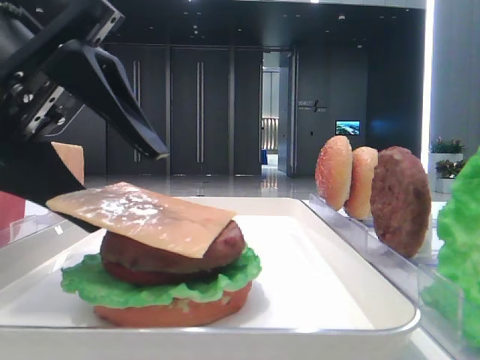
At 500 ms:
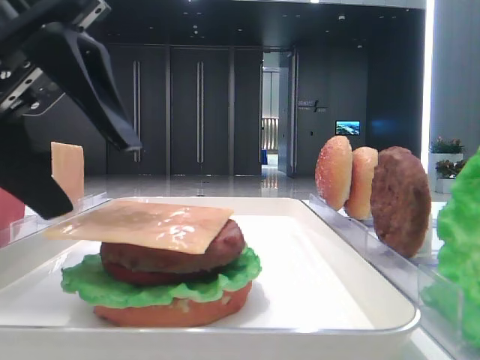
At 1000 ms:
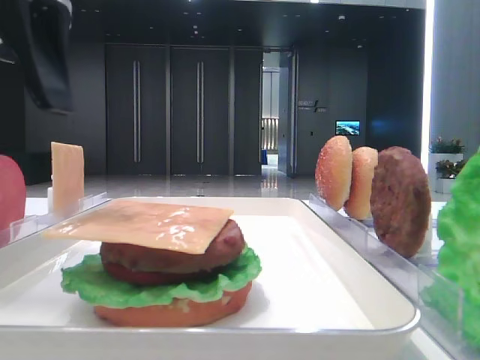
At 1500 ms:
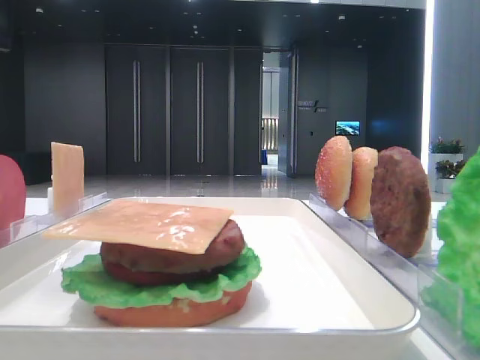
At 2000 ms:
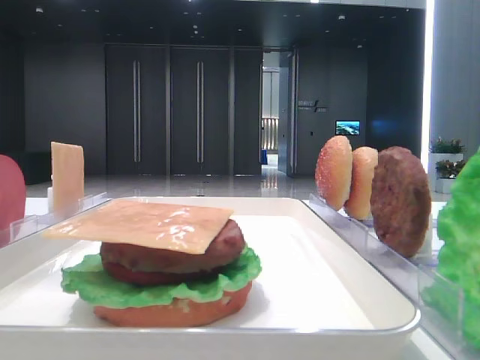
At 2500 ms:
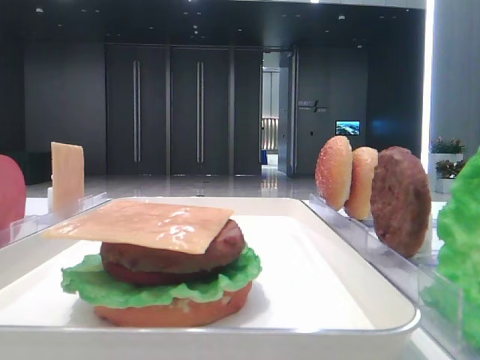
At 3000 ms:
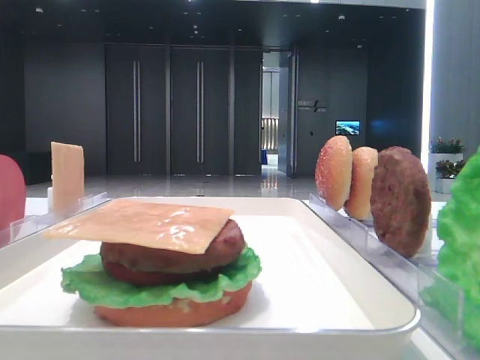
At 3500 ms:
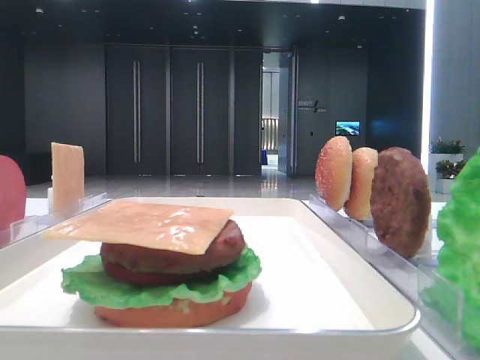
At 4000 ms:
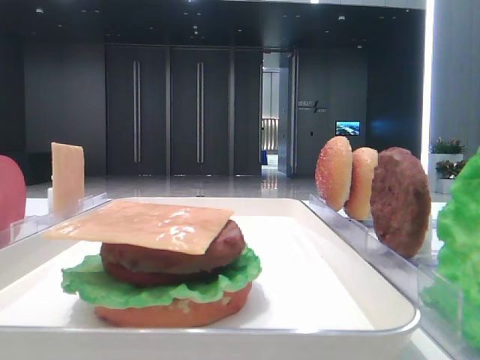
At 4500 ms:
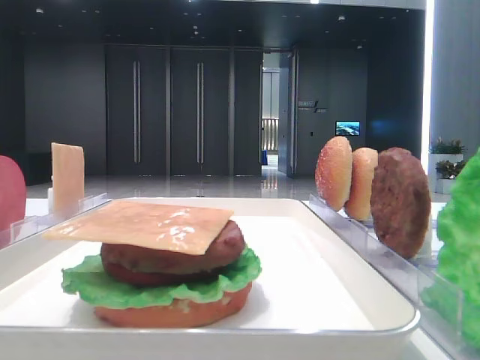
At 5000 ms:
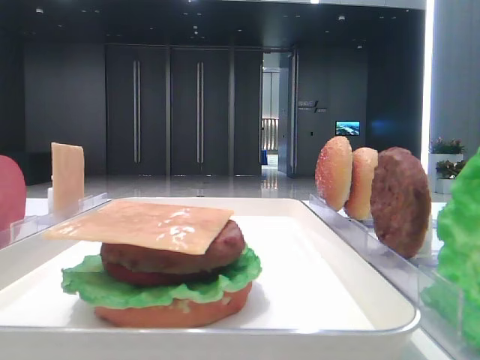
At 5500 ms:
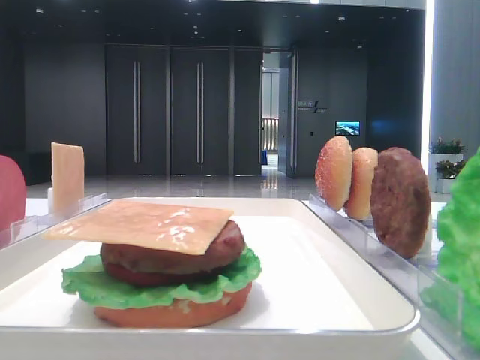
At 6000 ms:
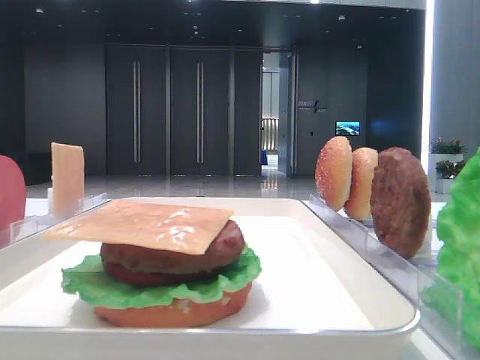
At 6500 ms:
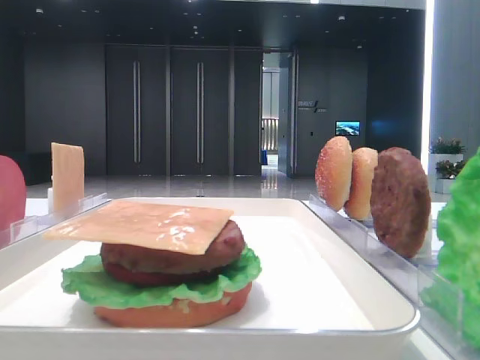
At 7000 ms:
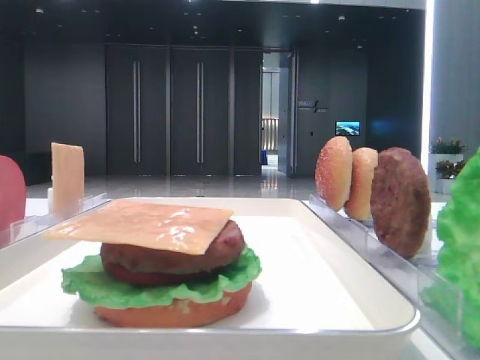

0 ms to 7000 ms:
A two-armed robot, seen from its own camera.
0 ms to 2000 ms: The left gripper travels upward and to the left by roughly 15 cm.
5000 ms to 7000 ms: Both grippers stay put.

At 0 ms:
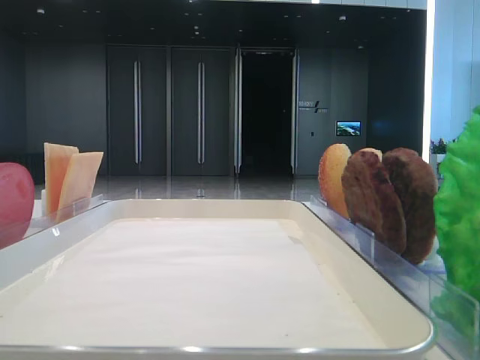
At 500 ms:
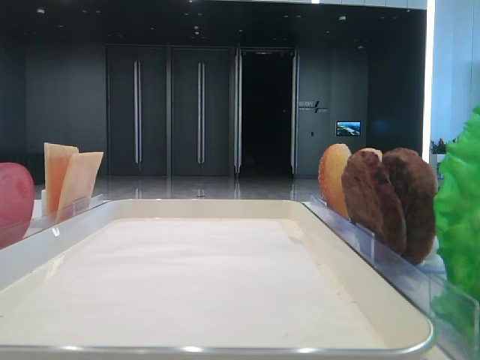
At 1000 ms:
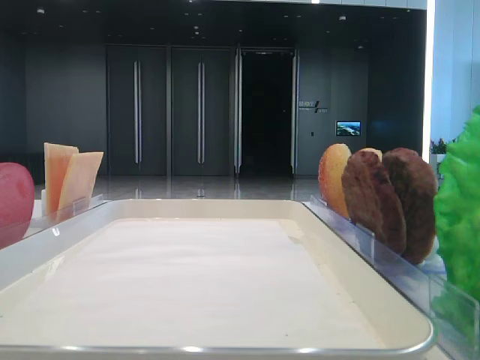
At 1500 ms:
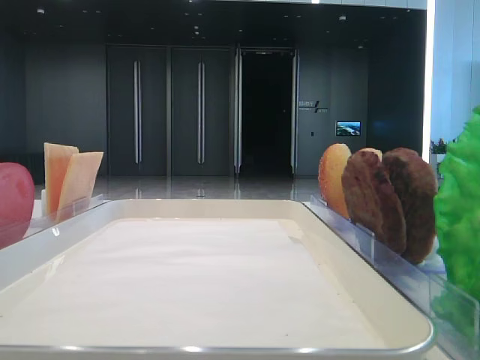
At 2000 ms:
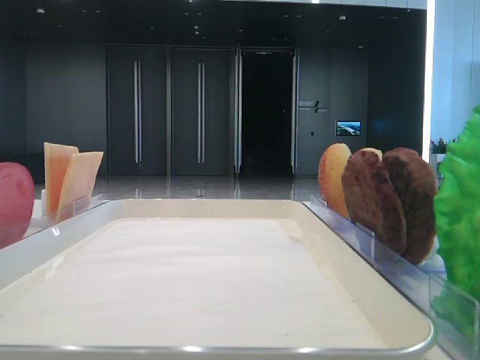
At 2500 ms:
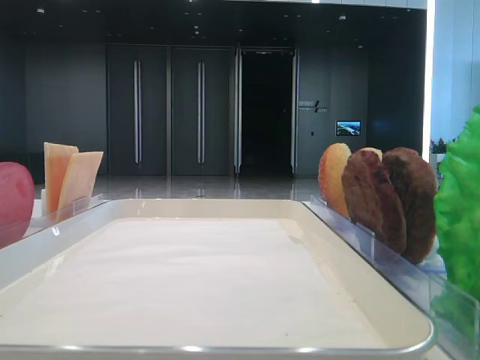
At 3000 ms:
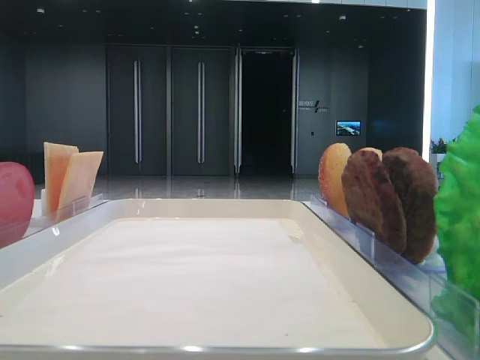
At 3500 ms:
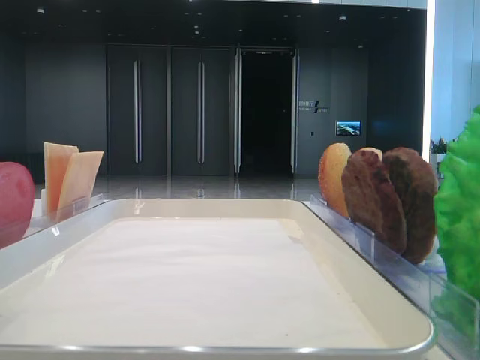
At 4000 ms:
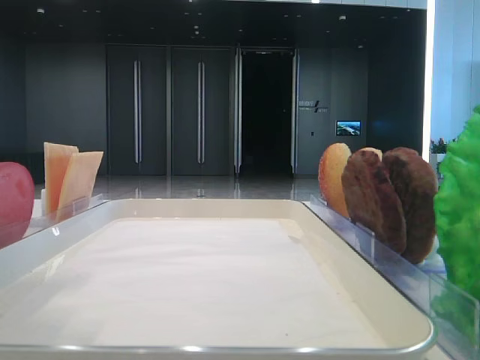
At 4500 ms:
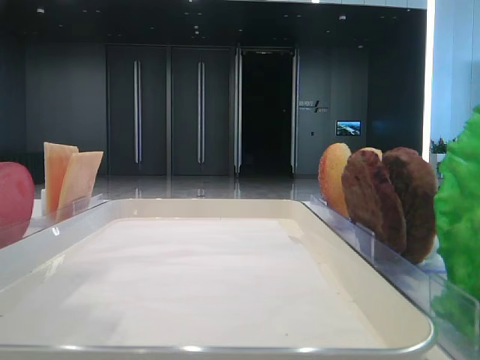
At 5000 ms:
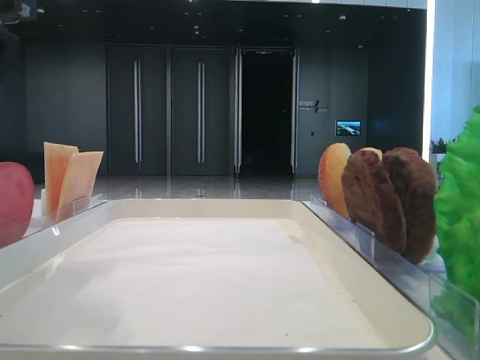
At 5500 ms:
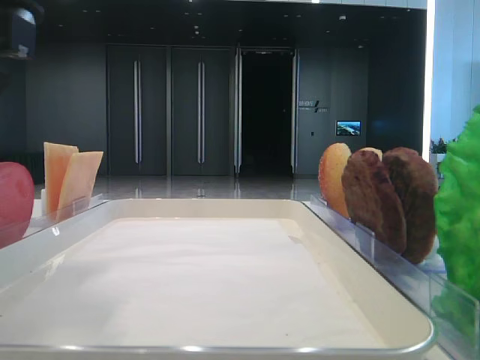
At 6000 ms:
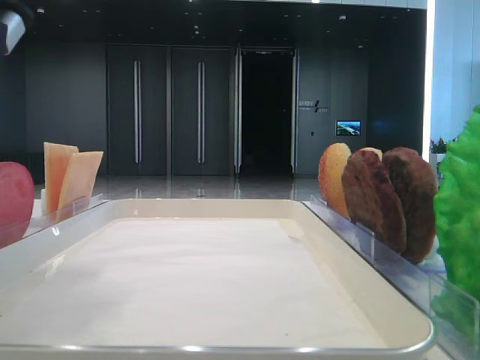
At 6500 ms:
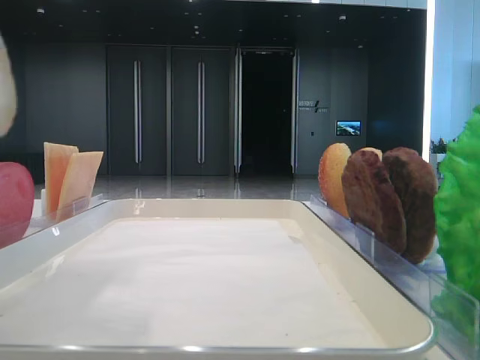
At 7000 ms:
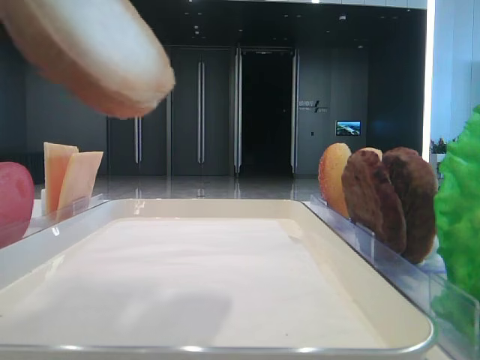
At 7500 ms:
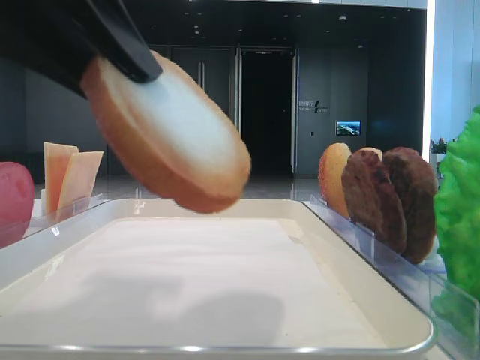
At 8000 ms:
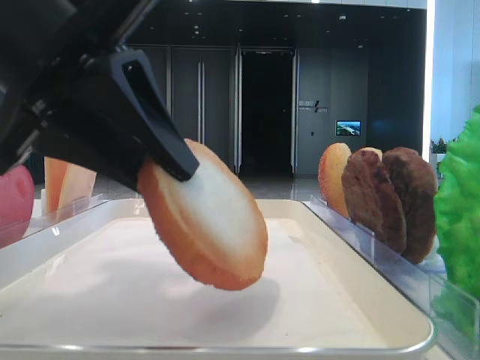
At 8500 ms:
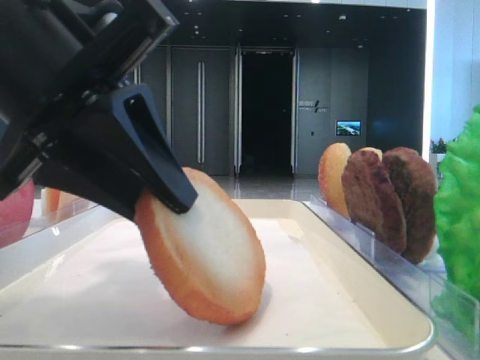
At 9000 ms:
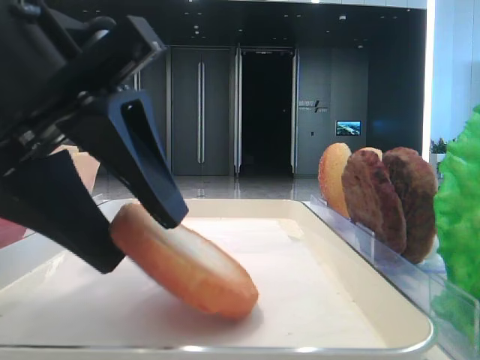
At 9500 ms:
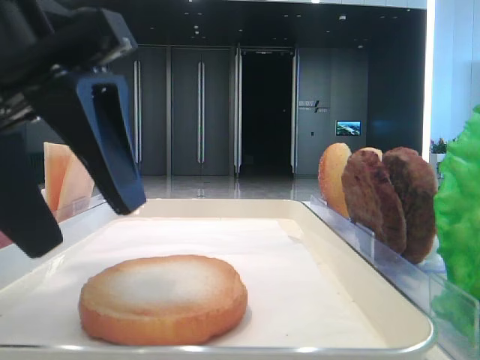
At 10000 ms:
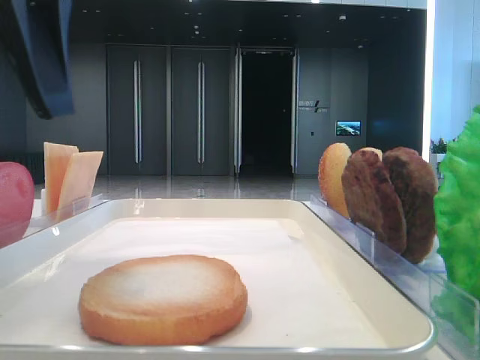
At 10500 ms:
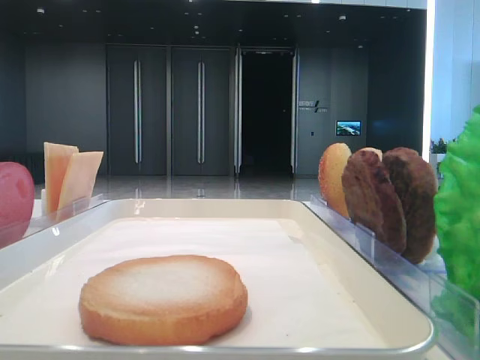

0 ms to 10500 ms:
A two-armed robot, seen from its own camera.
Step, 0 ms to 5500 ms: Pick up the bottom bread with the left hand.
Step, 6000 ms to 9000 ms: Place the bread on the tray with the left hand.
2000 ms to 4000 ms: The left gripper travels to the right and forward by roughly 15 cm.
4000 ms to 6500 ms: The left gripper travels downward and back again, some 5 cm each way, and closes.
6500 ms to 8500 ms: The left gripper travels downward and to the right by roughly 15 cm.
8500 ms to 10500 ms: The left gripper travels to the left and upward by approximately 20 cm, and opens up.

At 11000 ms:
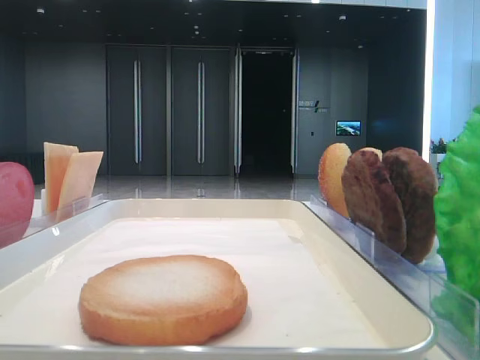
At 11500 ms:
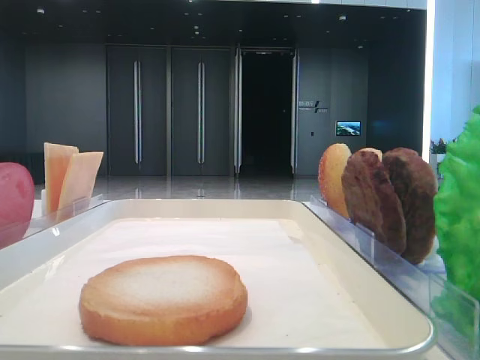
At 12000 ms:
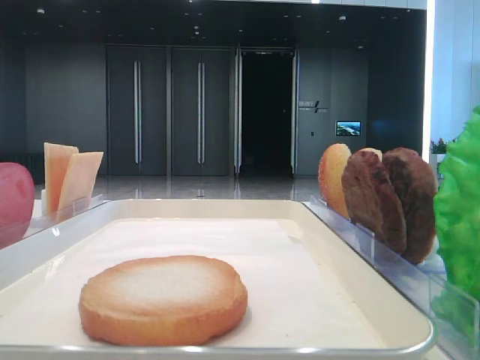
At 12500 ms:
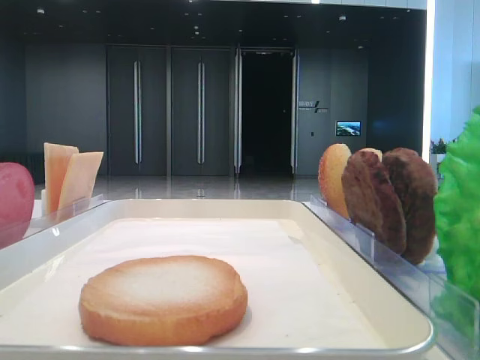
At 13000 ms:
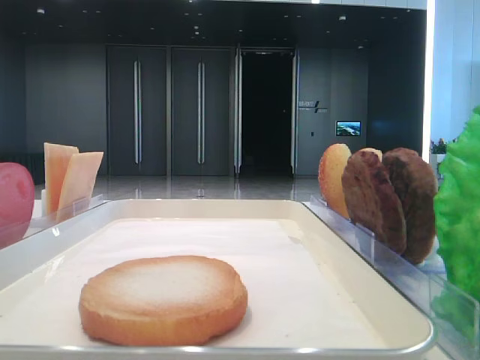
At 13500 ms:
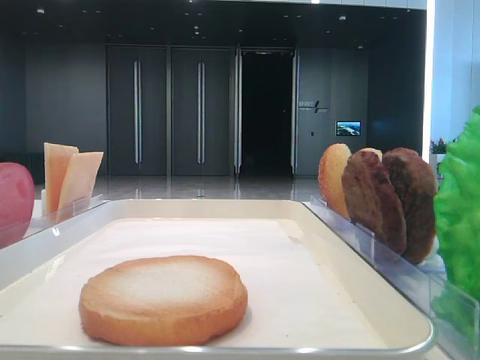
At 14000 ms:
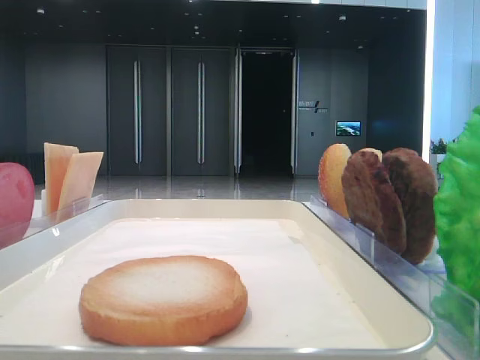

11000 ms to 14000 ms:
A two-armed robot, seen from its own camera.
12500 ms to 14000 ms: The two grippers keep their place.

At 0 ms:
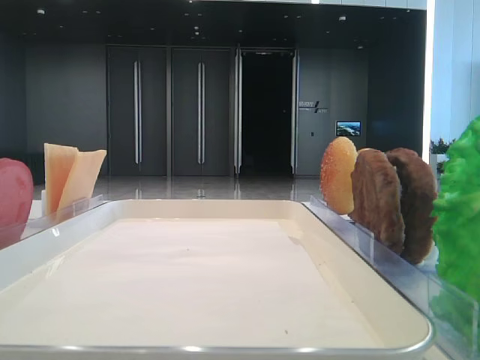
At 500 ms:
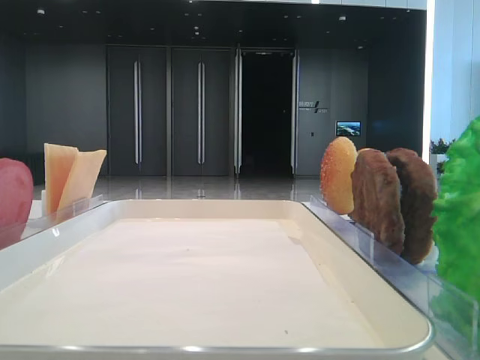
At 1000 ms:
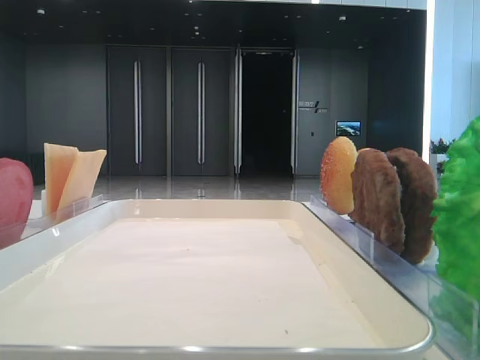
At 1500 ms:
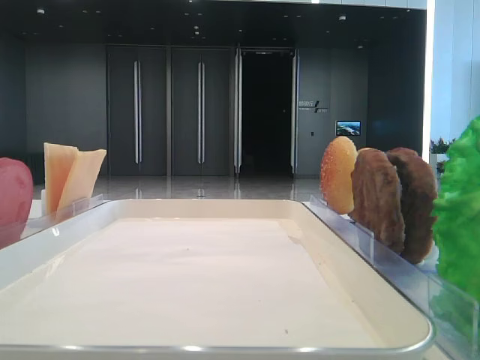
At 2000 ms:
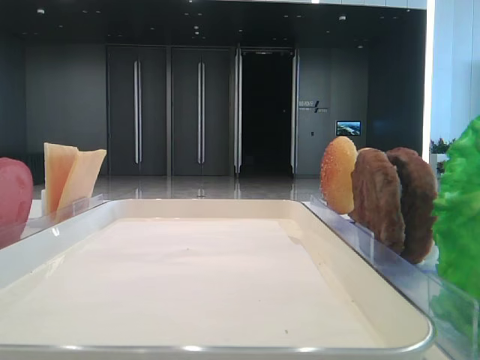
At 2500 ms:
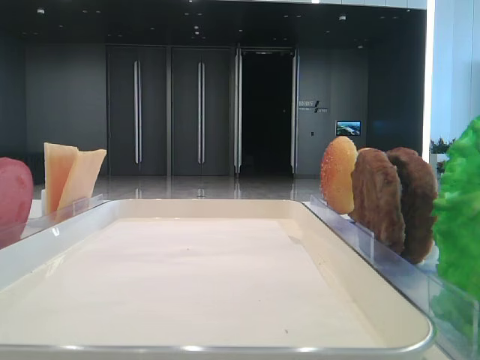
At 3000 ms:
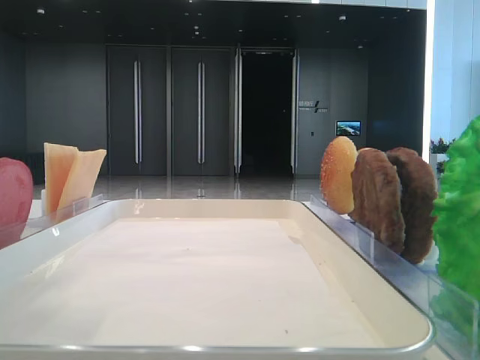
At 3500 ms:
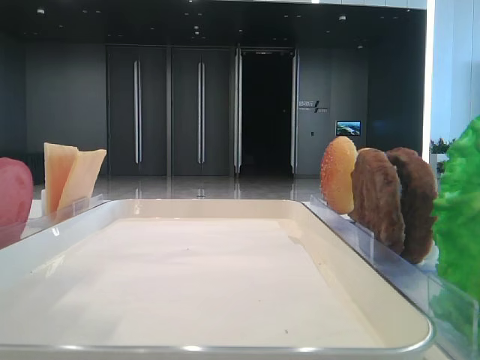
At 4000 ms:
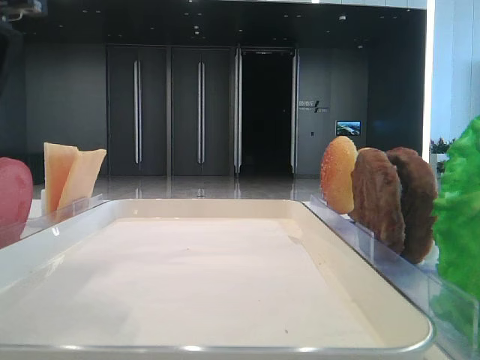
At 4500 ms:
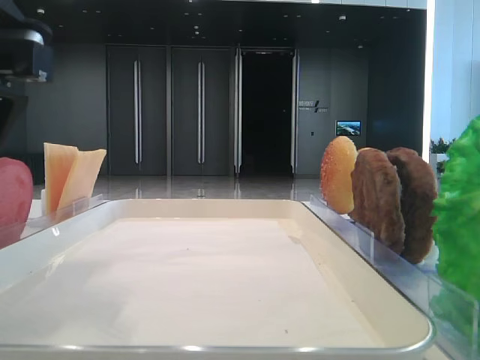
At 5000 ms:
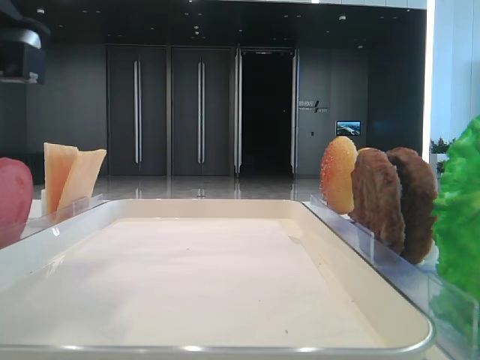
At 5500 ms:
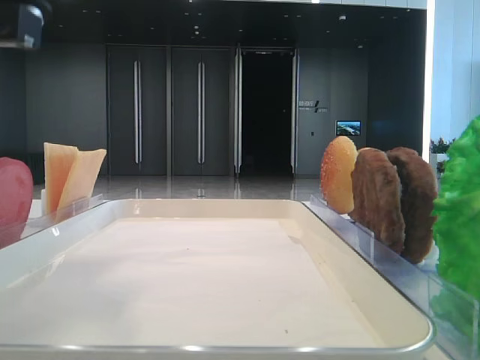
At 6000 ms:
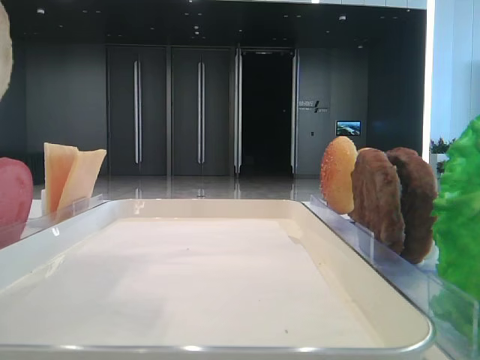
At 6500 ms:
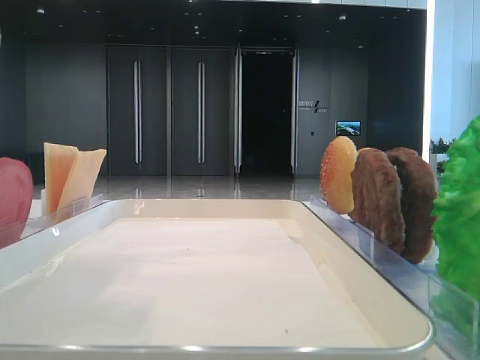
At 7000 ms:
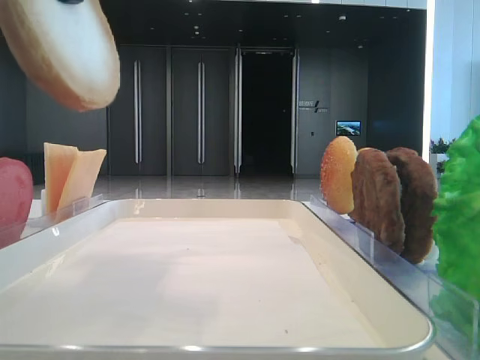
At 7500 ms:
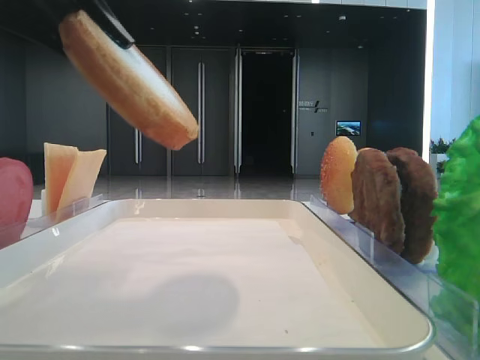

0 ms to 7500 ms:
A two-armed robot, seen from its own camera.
2000 ms to 4000 ms: The left gripper travels to the right and downward by roughly 15 cm.
4000 ms to 5500 ms: The left gripper closes up.
5500 ms to 7500 ms: The left gripper reaches roughly 10 cm upward, then returns.
